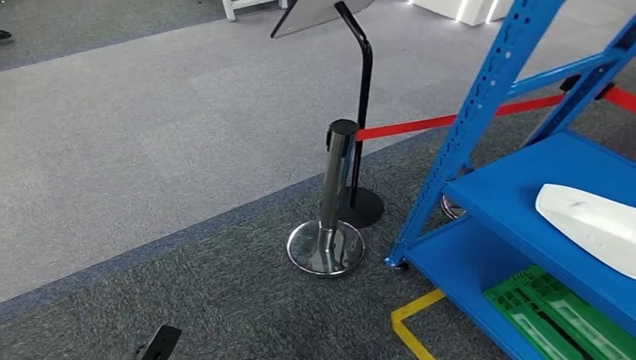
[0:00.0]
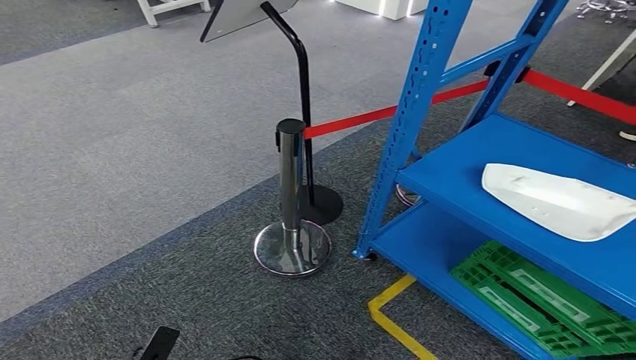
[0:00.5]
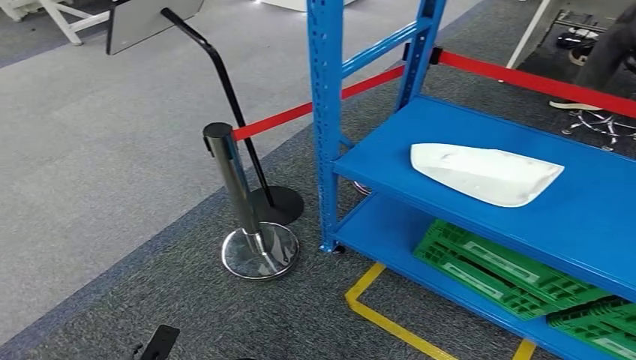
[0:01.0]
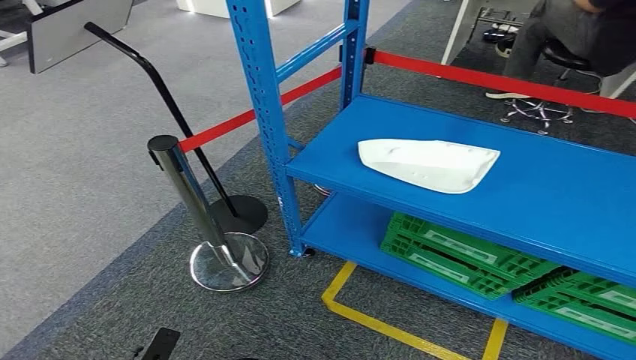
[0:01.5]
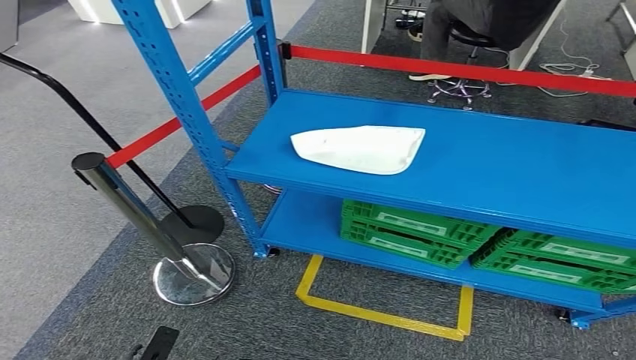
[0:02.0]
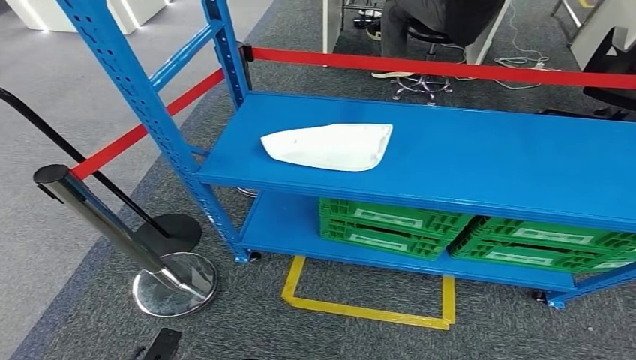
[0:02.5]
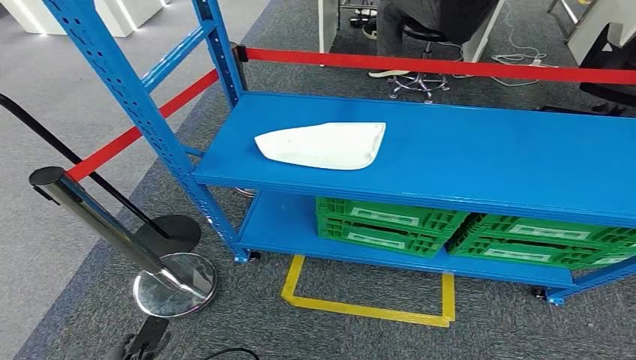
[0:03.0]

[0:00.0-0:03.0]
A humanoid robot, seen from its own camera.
Step, 0:00.0 to 0:03.0: Return to the initial position at the workbench.

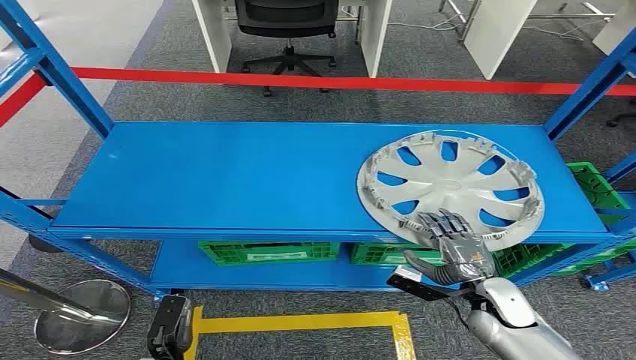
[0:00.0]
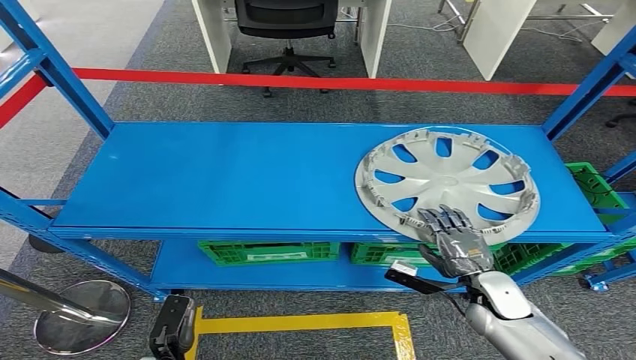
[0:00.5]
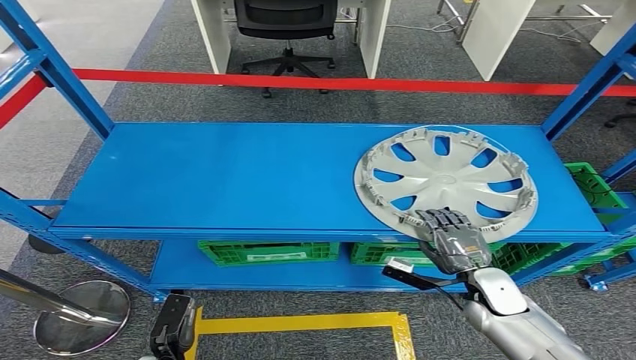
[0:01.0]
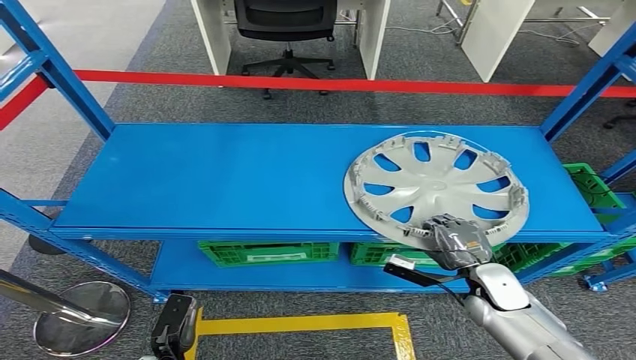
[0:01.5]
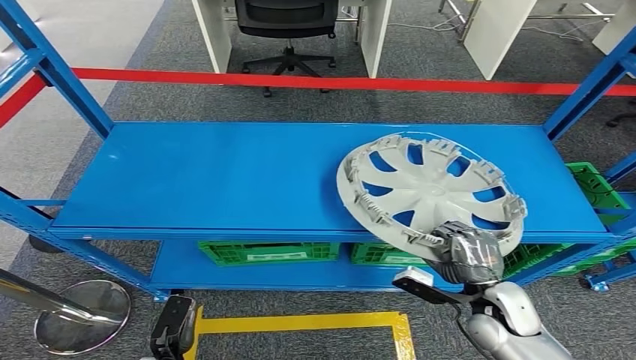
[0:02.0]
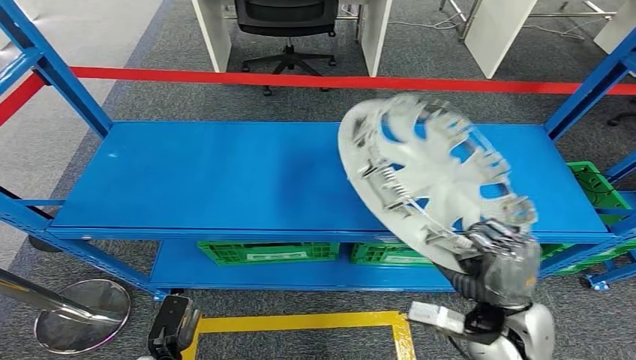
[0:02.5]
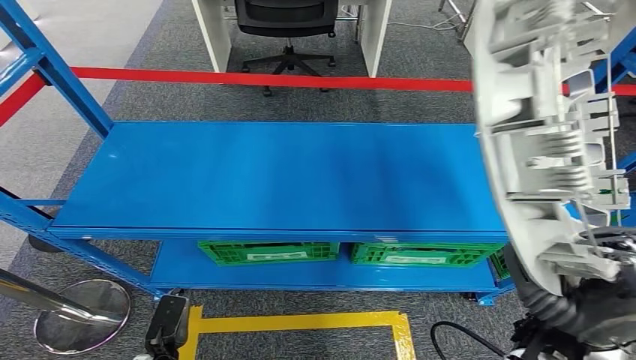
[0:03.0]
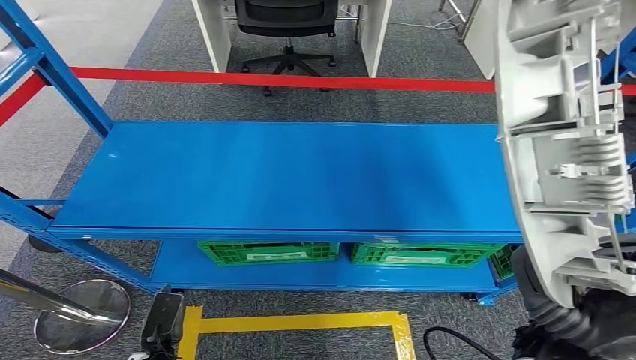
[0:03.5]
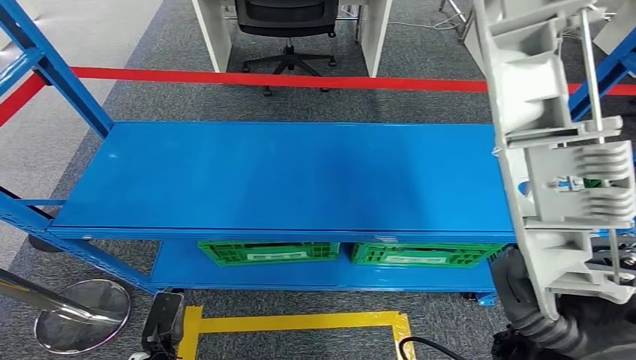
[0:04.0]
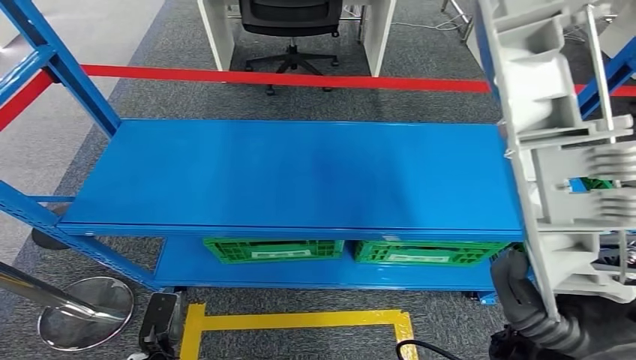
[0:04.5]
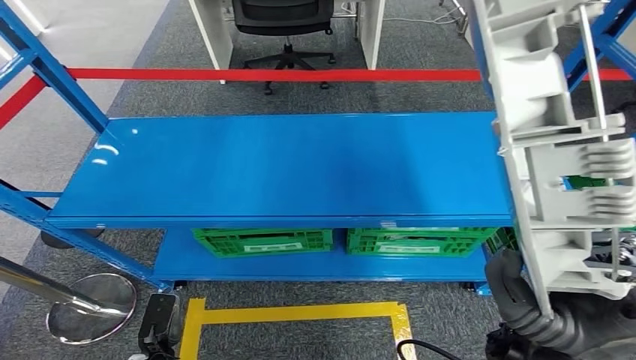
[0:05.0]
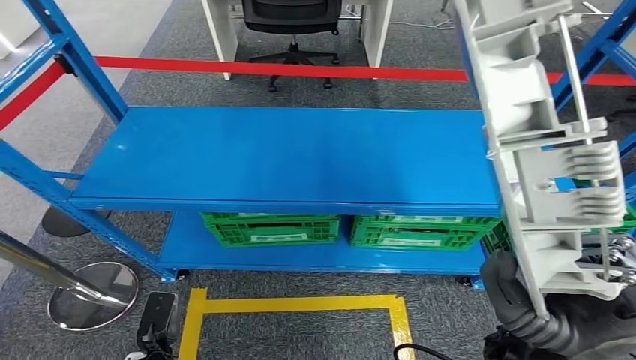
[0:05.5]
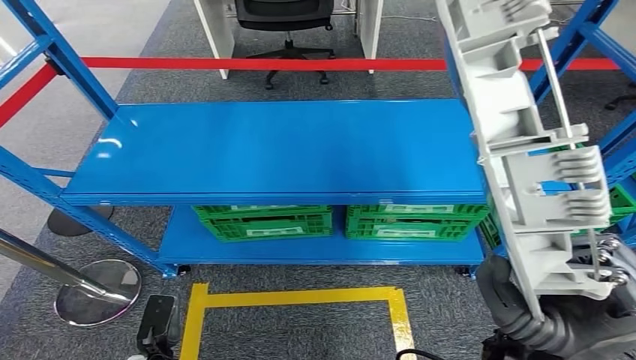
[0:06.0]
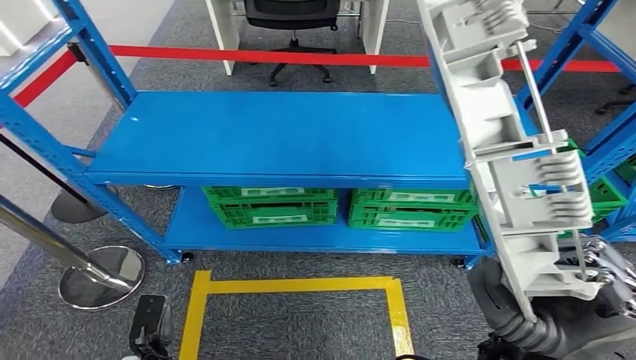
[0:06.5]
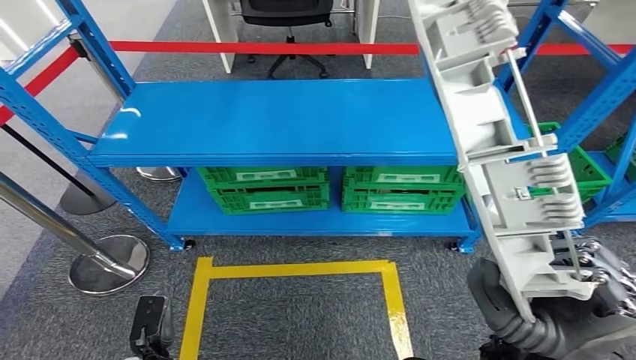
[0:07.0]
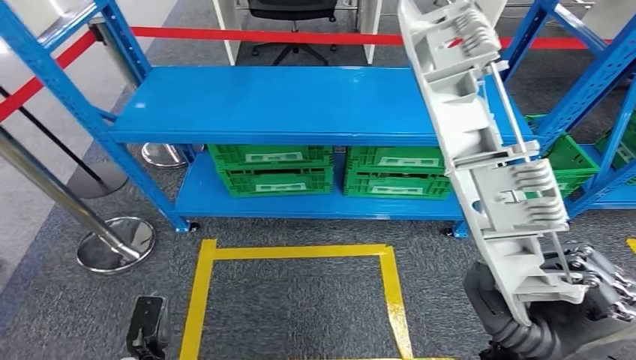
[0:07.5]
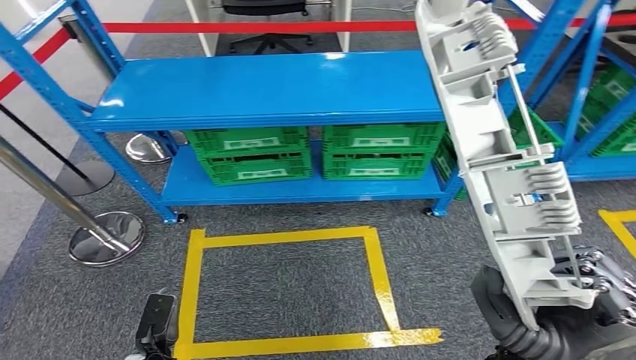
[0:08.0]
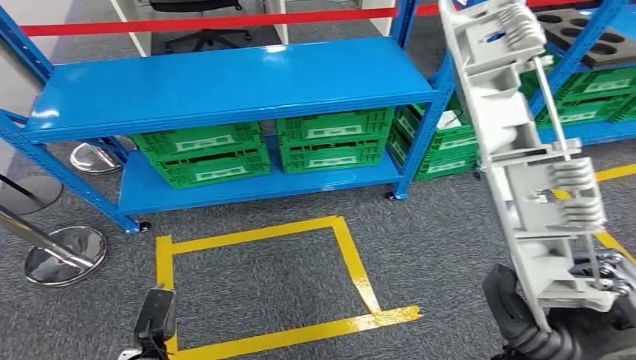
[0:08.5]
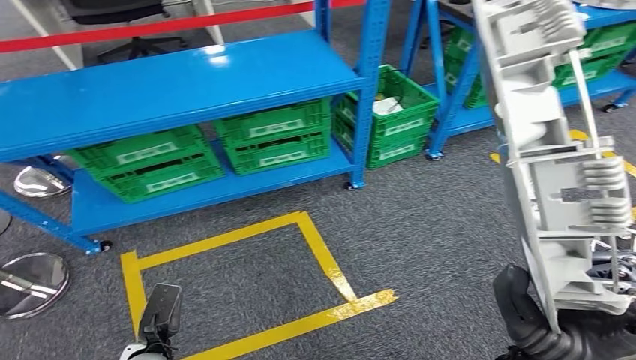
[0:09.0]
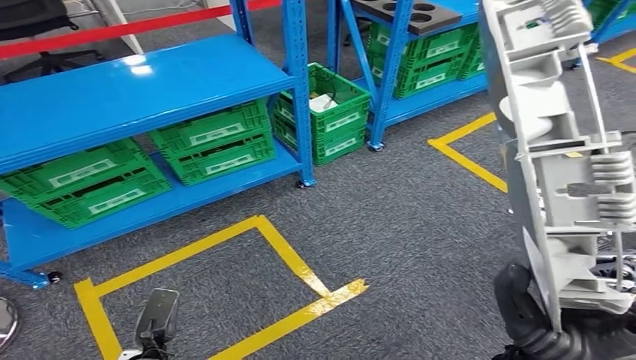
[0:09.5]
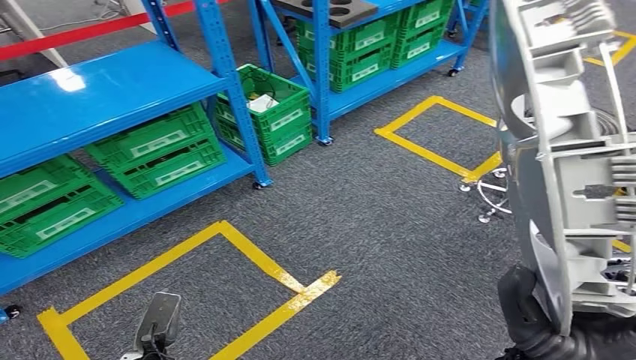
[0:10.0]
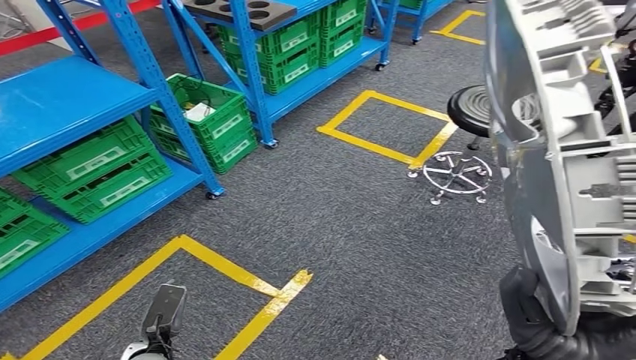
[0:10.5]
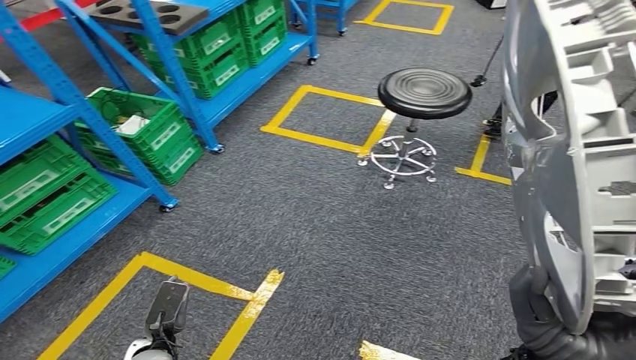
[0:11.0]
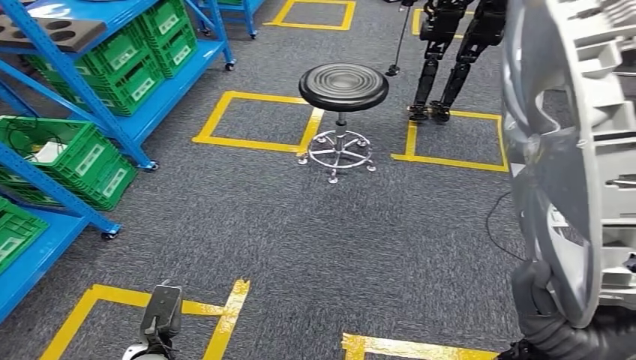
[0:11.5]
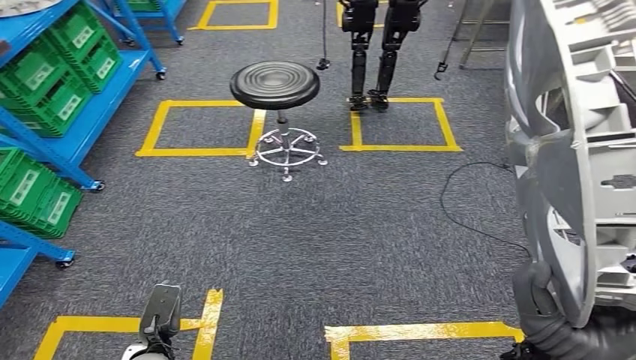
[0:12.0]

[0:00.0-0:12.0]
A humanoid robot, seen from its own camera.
Step, 0:00.0 to 0:02.5: Pick up the small component from the shelf.

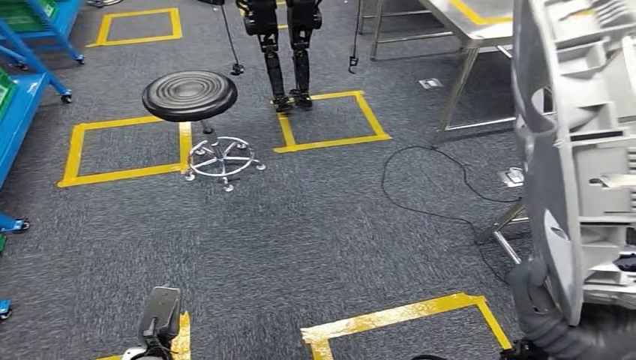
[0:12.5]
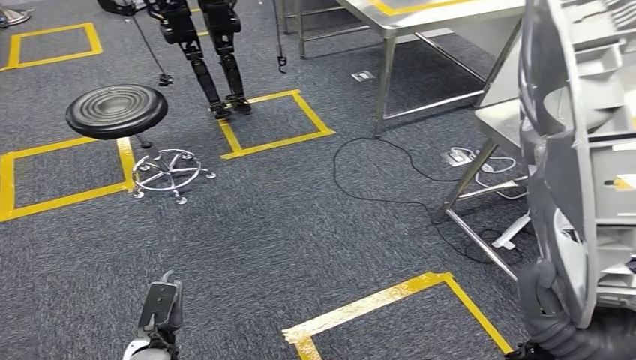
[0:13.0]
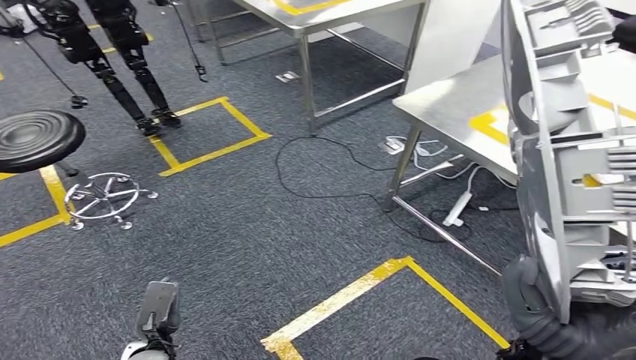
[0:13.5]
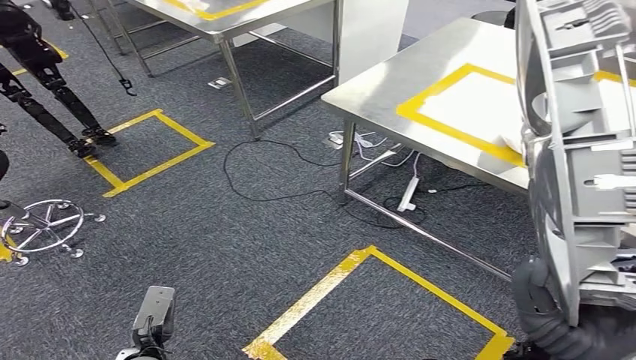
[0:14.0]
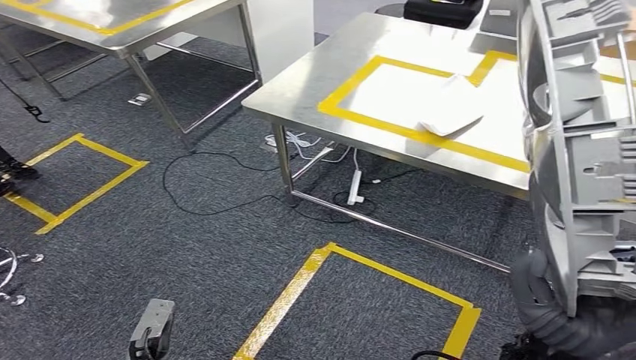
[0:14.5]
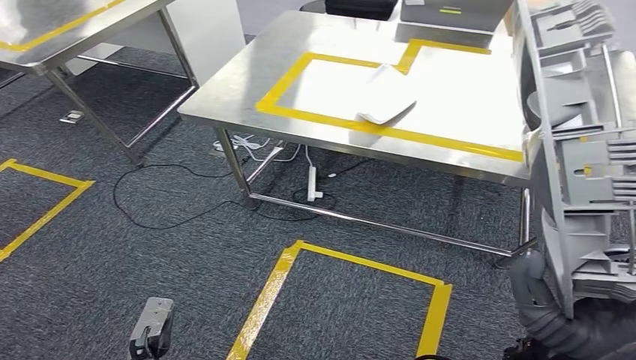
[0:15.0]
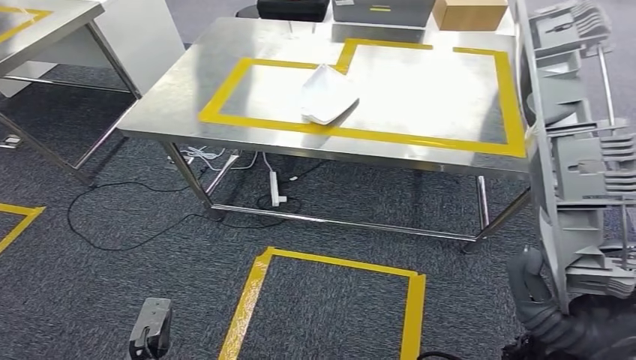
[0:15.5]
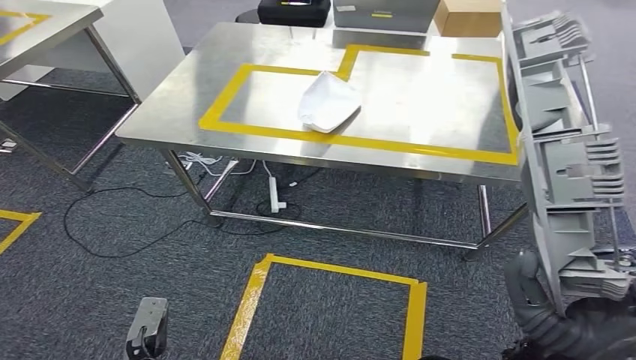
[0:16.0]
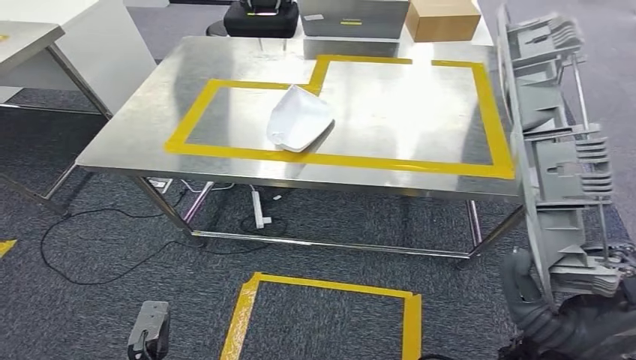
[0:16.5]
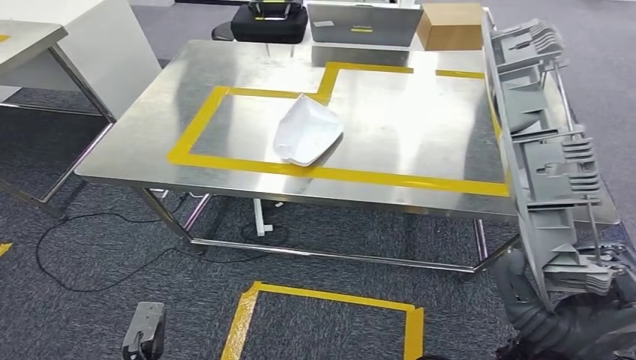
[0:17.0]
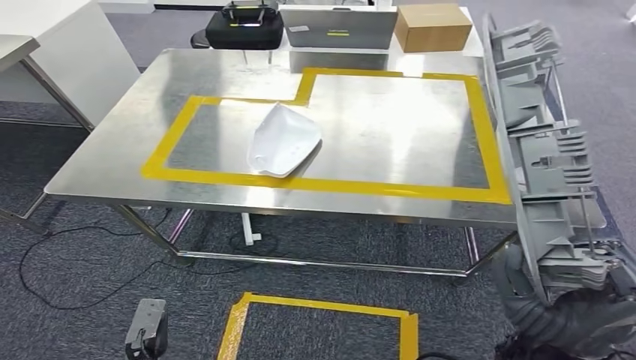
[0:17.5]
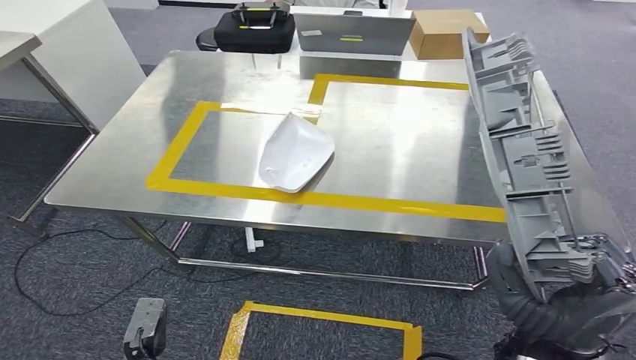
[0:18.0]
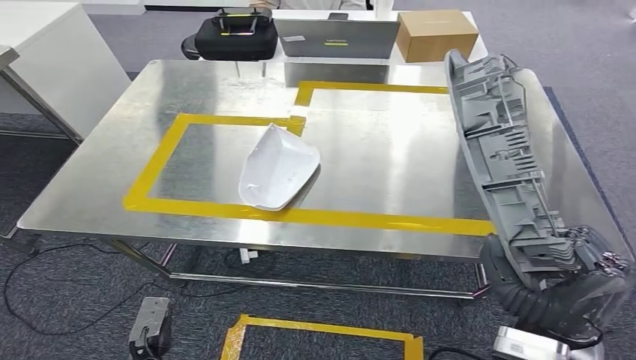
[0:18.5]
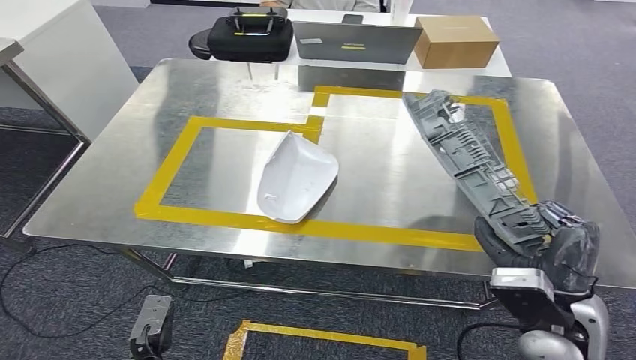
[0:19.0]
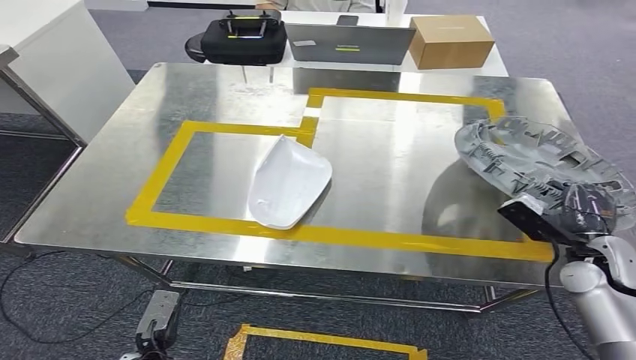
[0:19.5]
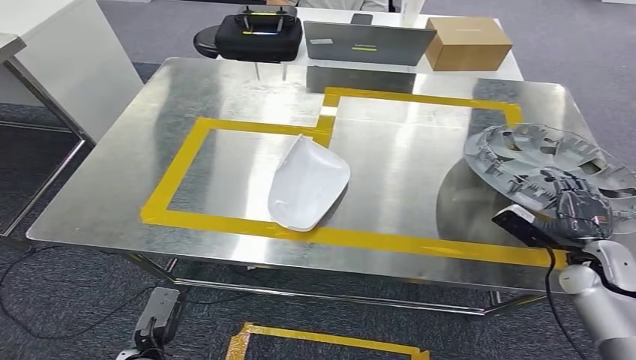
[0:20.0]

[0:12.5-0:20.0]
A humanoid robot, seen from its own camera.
Step, 0:12.5 to 0:18.0: Move the small component to the workbench.
